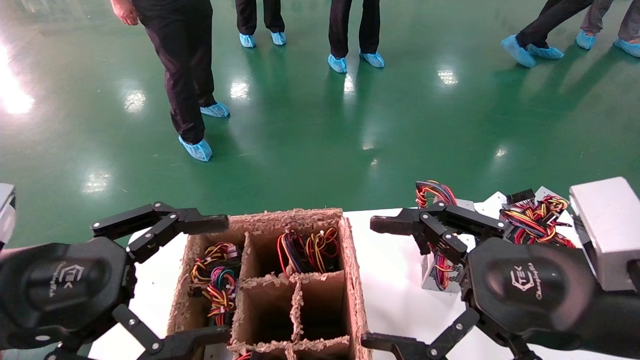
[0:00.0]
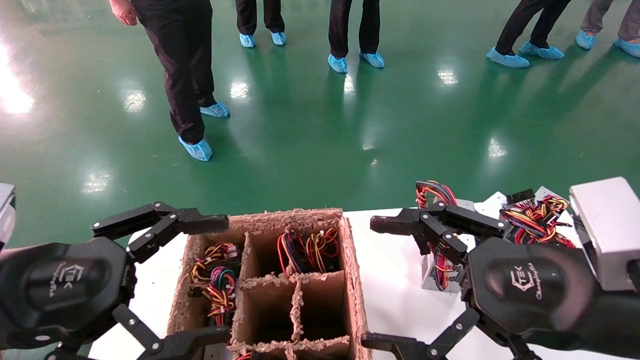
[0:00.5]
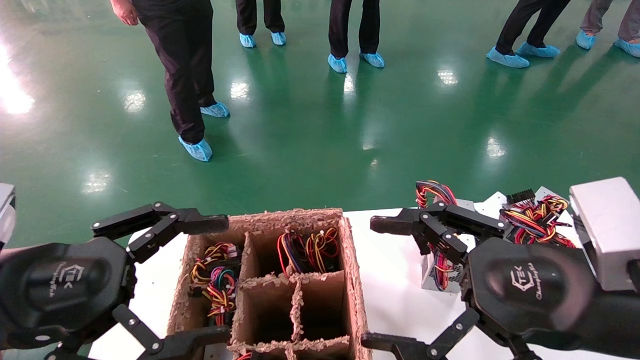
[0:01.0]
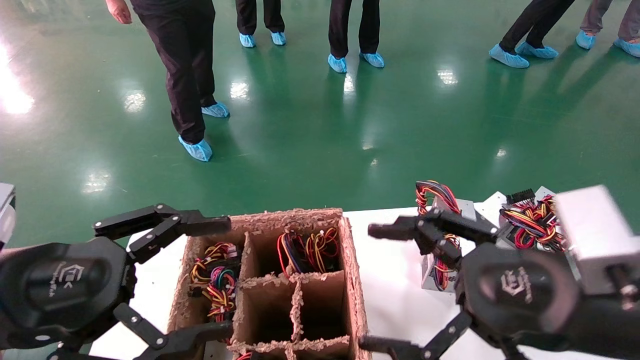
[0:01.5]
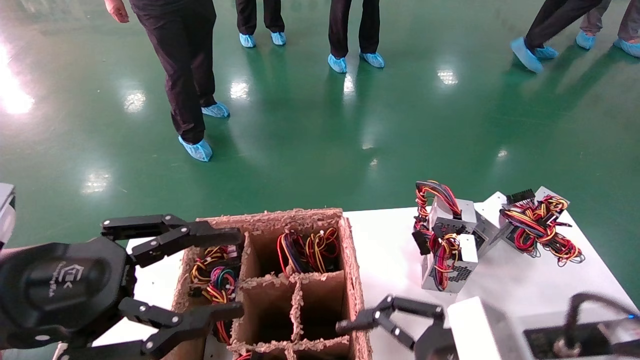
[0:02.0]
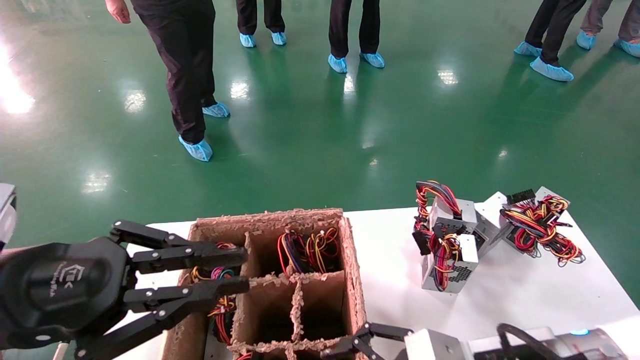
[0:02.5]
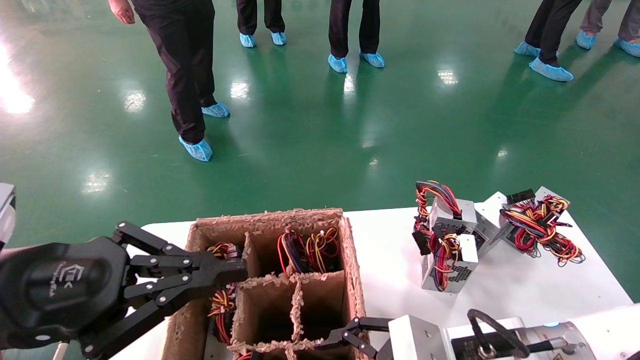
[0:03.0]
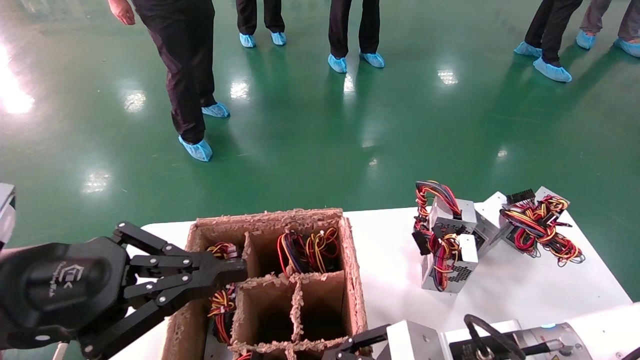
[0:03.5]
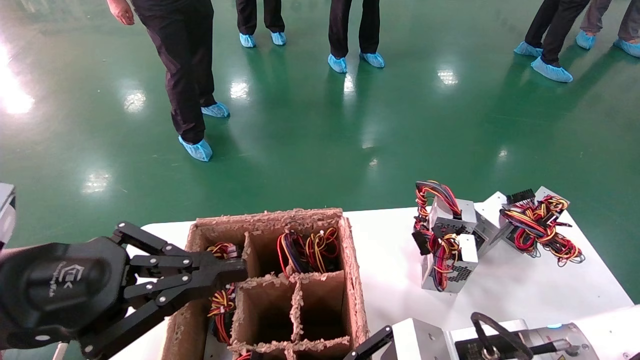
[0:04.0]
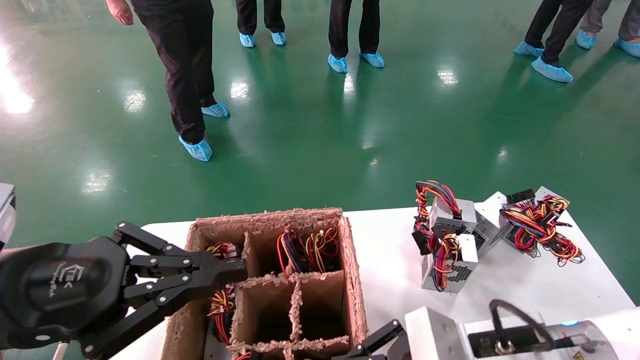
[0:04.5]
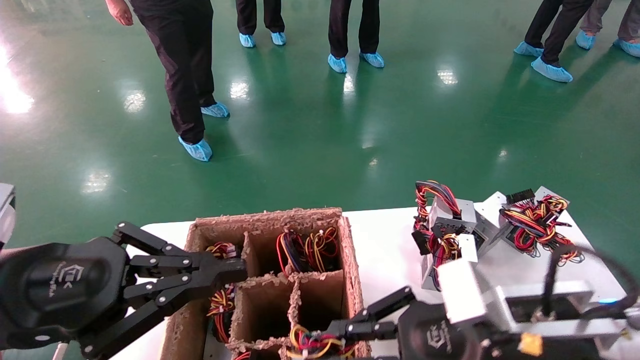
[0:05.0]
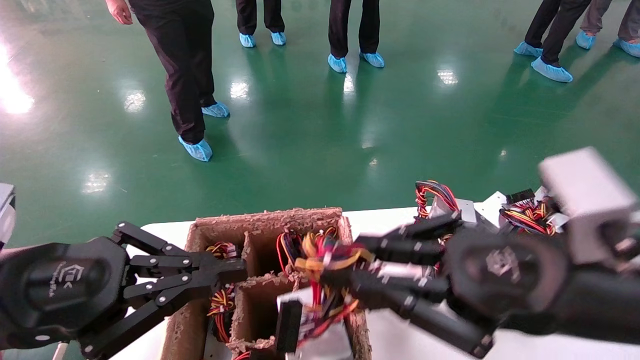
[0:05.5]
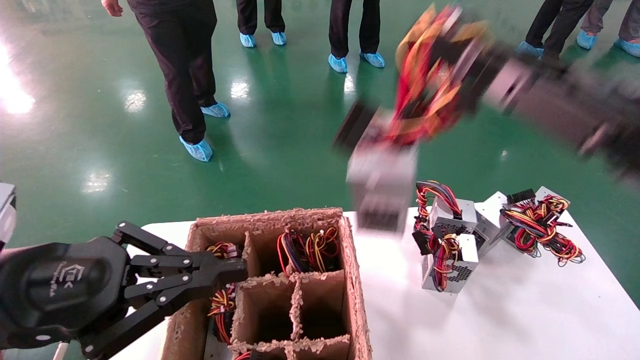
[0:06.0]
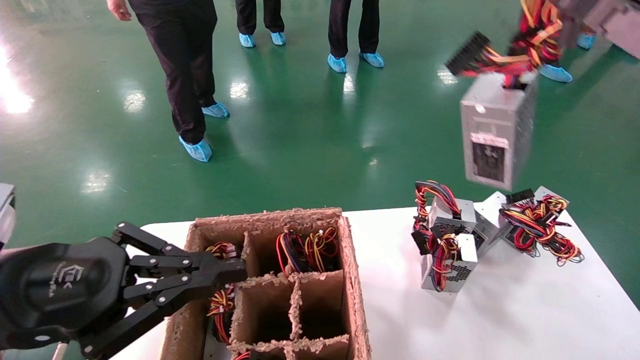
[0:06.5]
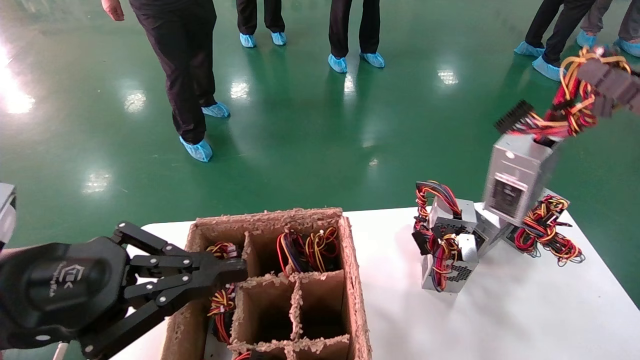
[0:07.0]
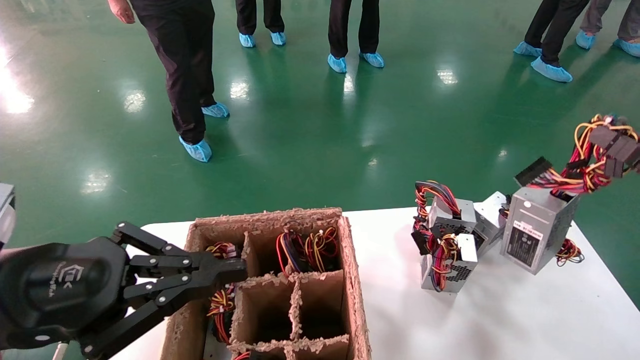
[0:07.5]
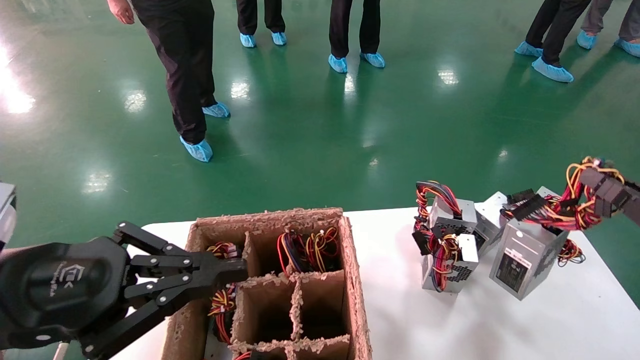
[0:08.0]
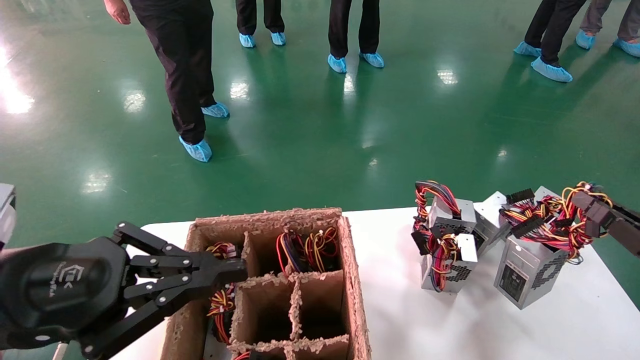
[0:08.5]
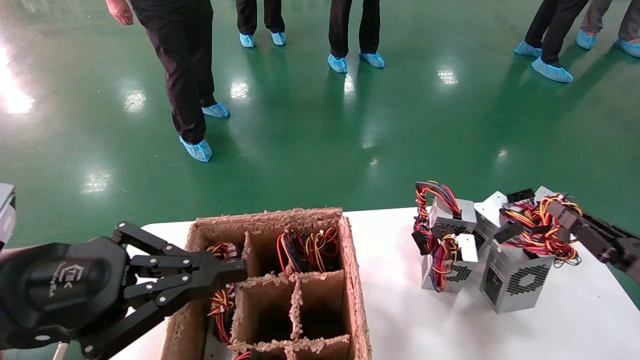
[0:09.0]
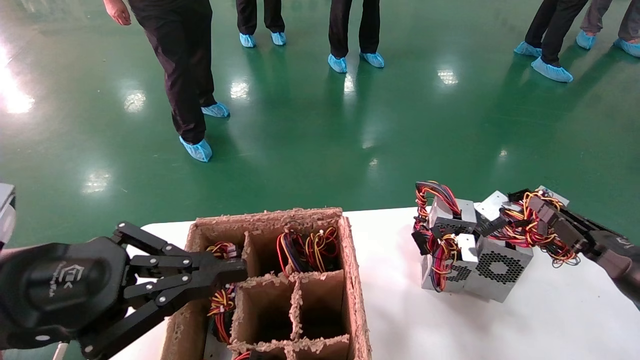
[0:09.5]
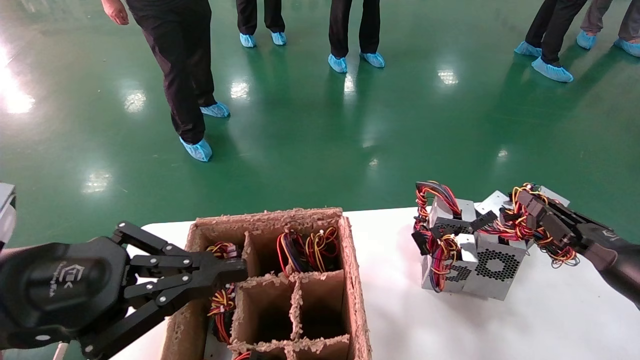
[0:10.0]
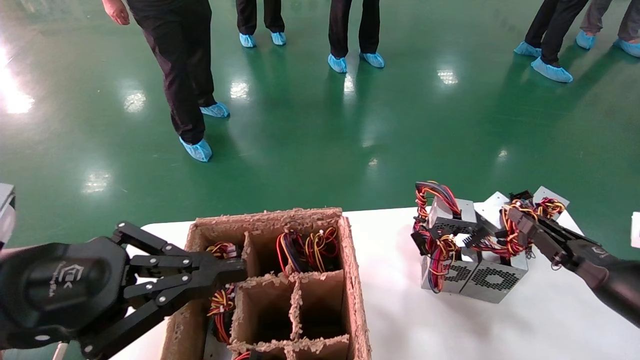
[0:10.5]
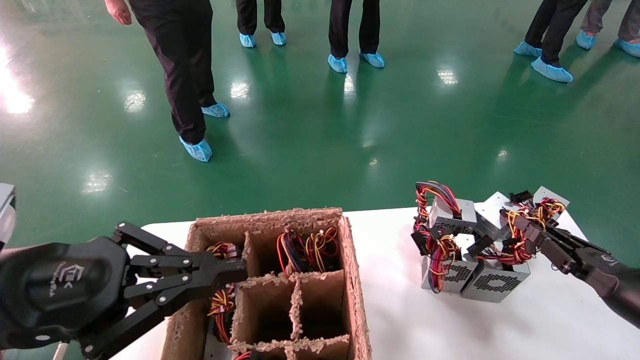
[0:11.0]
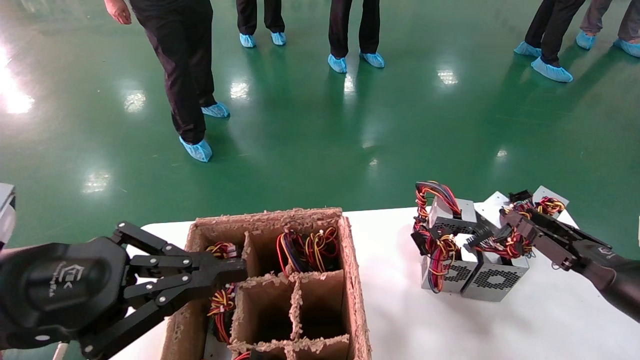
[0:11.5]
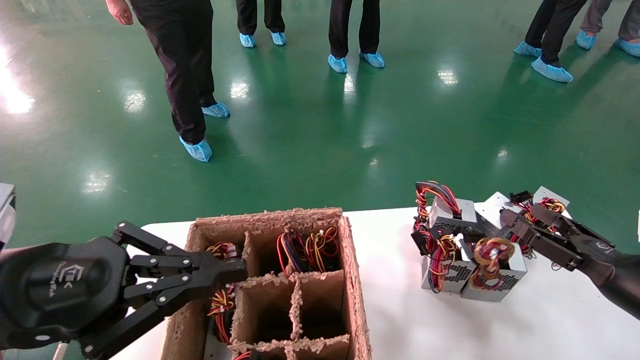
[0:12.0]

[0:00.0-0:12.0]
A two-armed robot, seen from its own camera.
Step, 0:02.0 to 0:04.0: Grab the main unit power supply from the containment box.
Step, 0:04.5 to 0:11.5: Place the main unit power supply in the designated area.
0:00.0 to 0:02.0: The right gripper is displaced downward by approximately 5 cm.
0:02.0 to 0:04.0: The left gripper closes up. Meanwhile the right gripper is displaced downward by about 5 cm, and closes up.
0:04.0 to 0:06.0: The right gripper heads upward and to the right, covering some 20 cm.
0:06.0 to 0:08.0: The right gripper shifts roughly 20 cm to the right and downward.
0:08.0 to 0:10.0: The right gripper shifts roughly 10 cm forward and downward.
0:10.0 to 0:12.0: The right gripper opens its fingers.

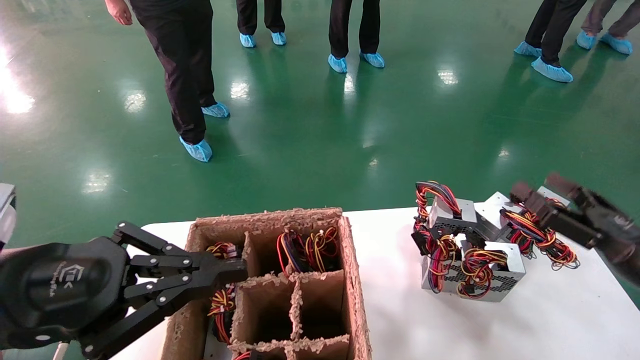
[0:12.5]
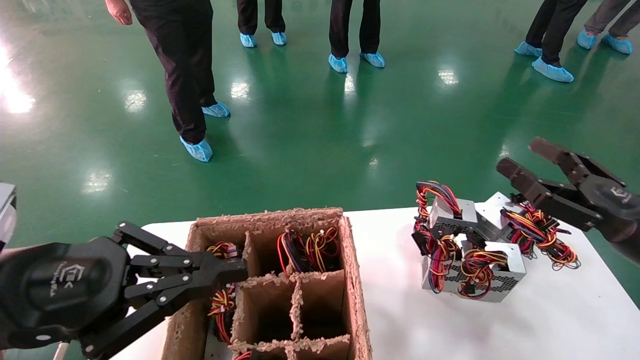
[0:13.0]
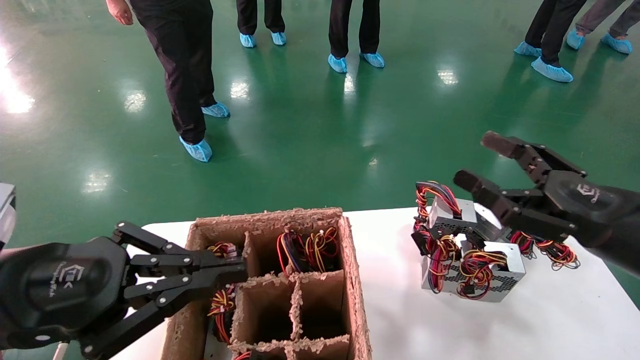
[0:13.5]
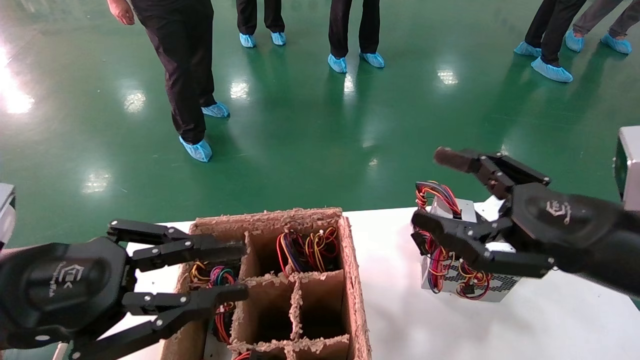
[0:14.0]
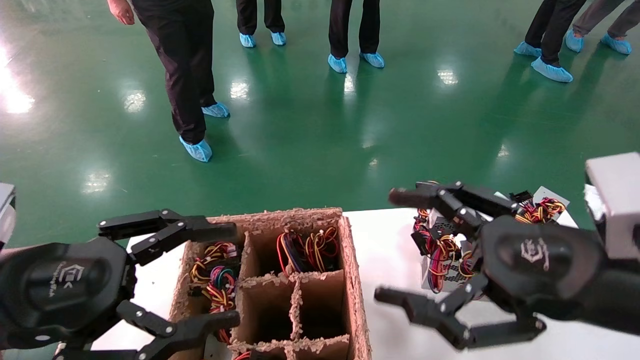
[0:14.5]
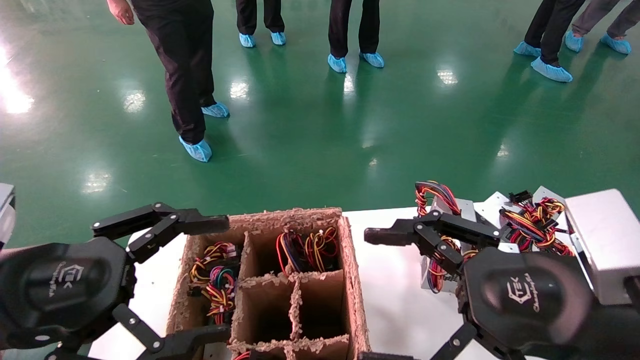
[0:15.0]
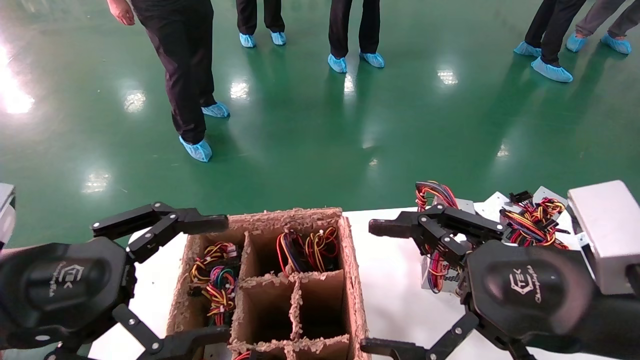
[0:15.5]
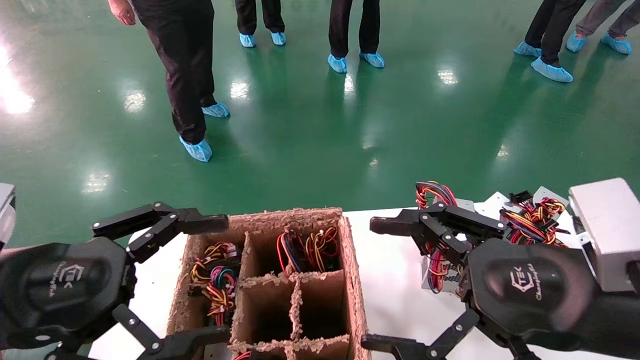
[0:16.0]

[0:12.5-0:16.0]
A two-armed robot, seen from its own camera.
0:12.5 to 0:14.5: The right gripper travels to the left, upward and backward by about 20 cm. The left gripper opens.
0:14.5 to 0:16.0: The left gripper opens its fingers.

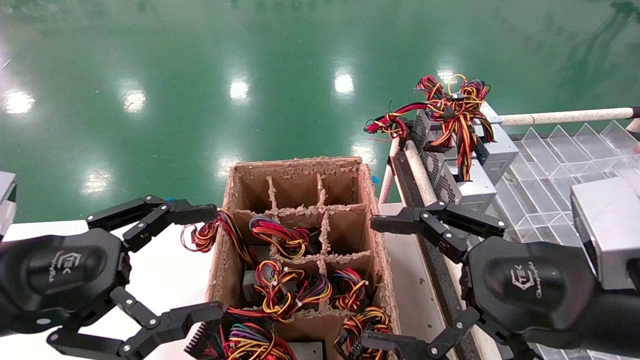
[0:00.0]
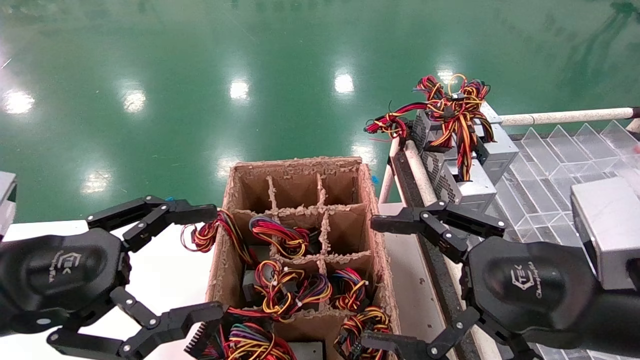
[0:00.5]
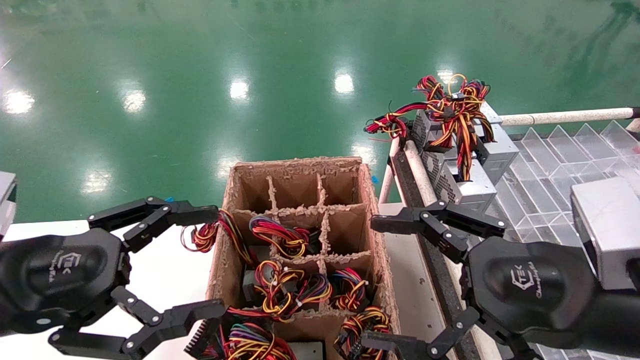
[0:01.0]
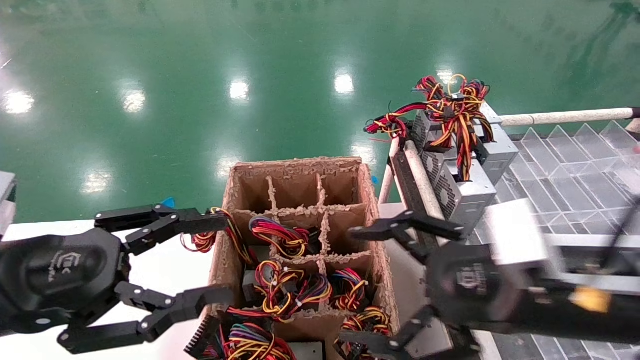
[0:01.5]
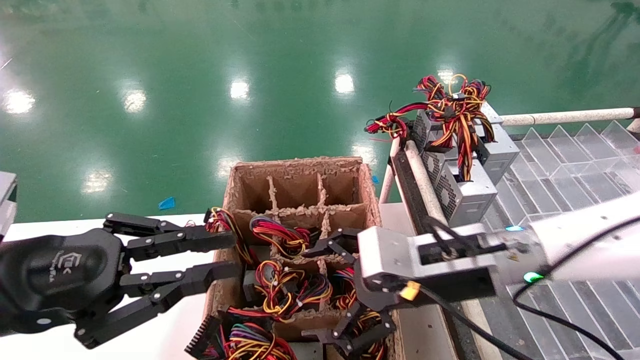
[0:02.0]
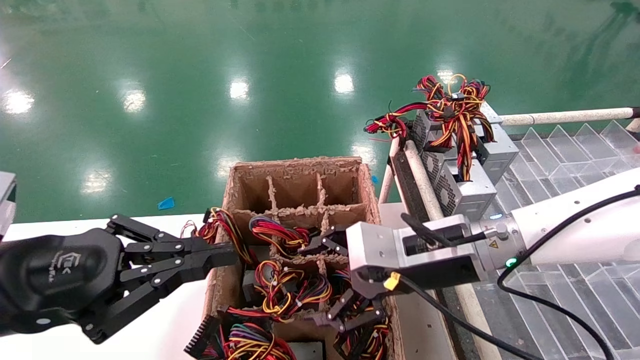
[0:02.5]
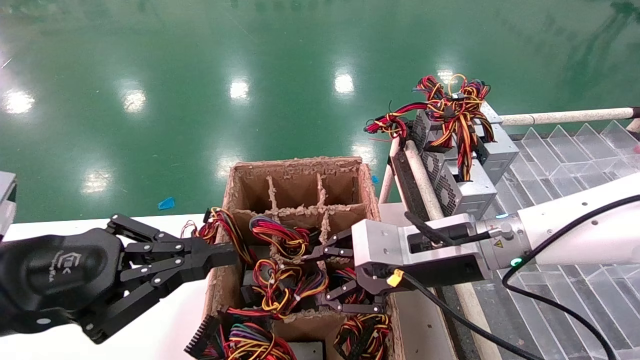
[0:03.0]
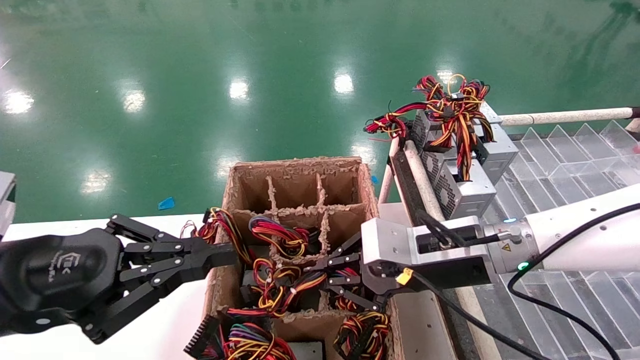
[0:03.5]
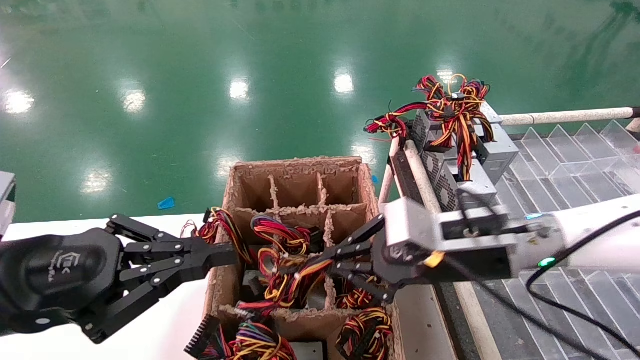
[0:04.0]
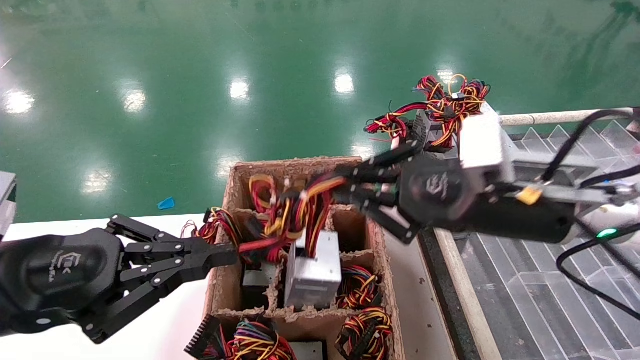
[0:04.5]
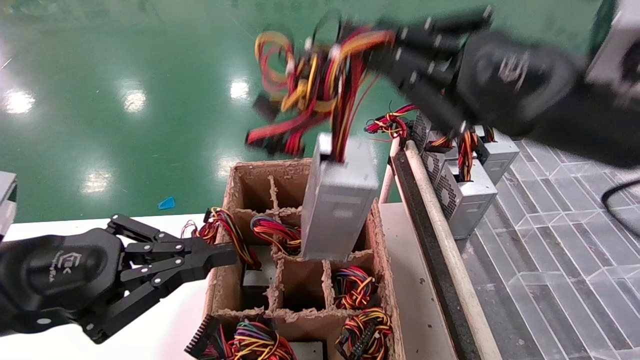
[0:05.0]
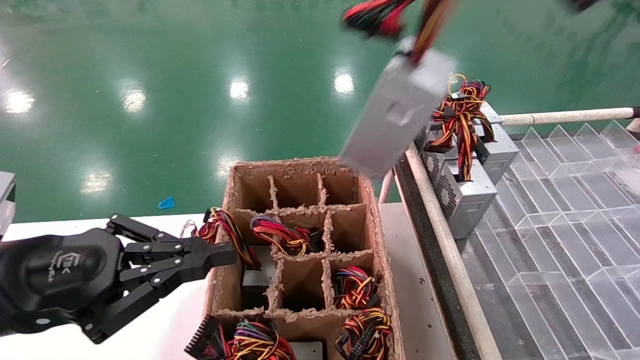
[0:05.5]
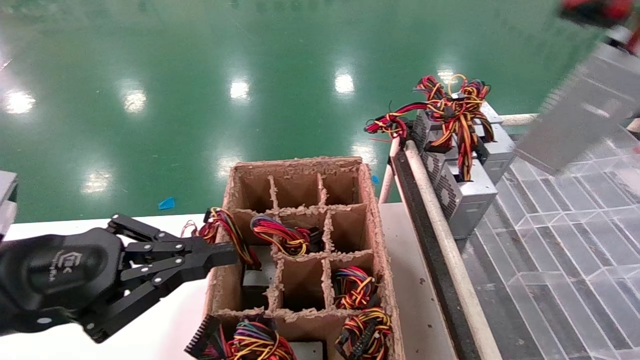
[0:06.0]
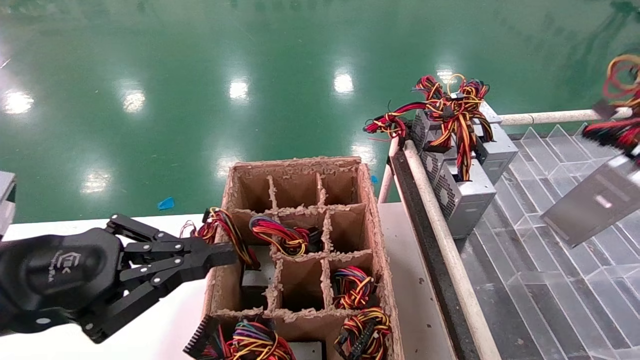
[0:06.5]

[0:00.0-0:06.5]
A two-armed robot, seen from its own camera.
Step, 0:02.0 to 0:03.5: Grab the main unit power supply from the containment box.
0:00.0 to 0:02.0: The right gripper moves forward and to the left, approximately 15 cm; the left gripper closes.
0:02.0 to 0:04.5: The right gripper travels upward by roughly 5 cm, and closes its fingers.
0:04.5 to 0:06.5: The right gripper is displaced to the right and backward by approximately 30 cm.
